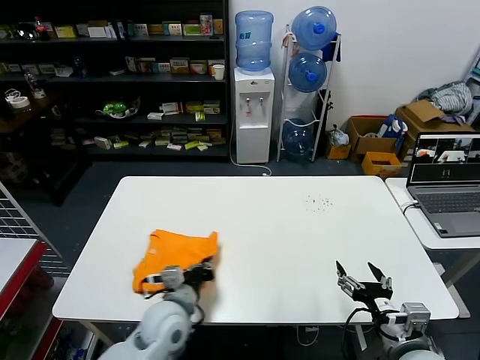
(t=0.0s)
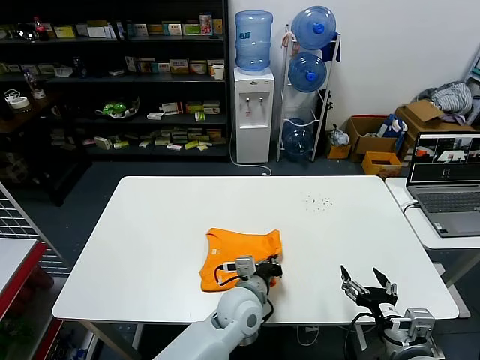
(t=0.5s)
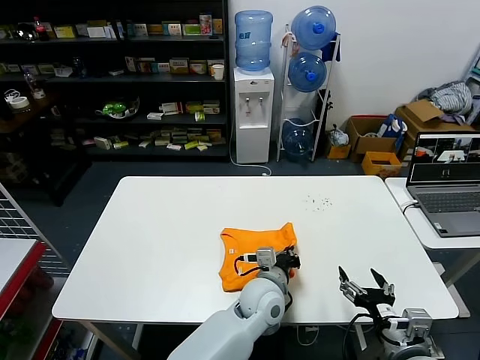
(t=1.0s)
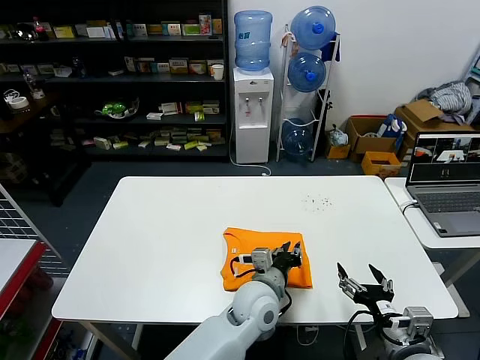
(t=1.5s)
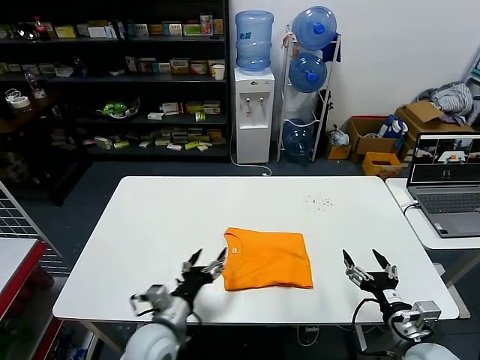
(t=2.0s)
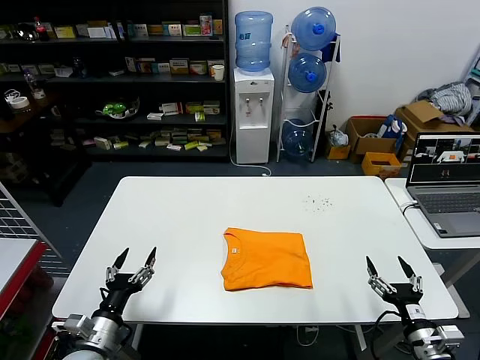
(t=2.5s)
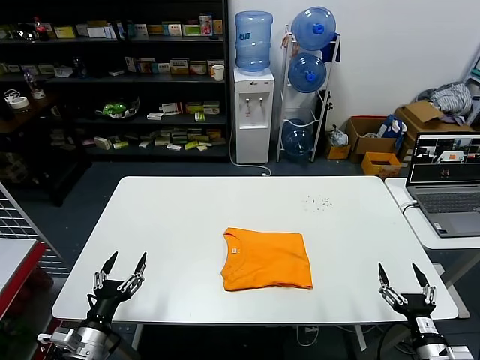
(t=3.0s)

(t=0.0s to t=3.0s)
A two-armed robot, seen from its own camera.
Task of the whole recording: fold and organize the clothes.
t=0.0s - t=1.5s: The left gripper moves to the right, about 25 cm.
t=1.5s - t=3.0s: The right gripper goes about 10 cm downward and to the right; the left gripper moves to the left, some 35 cm, and opens.
